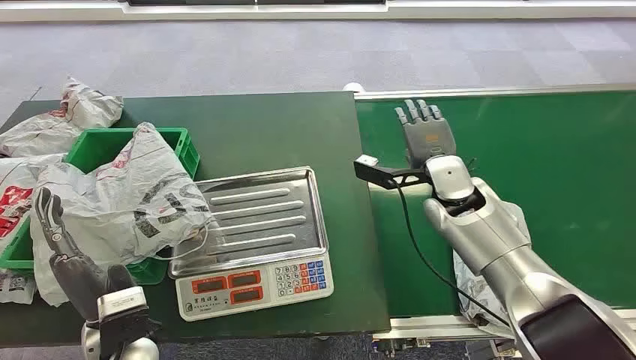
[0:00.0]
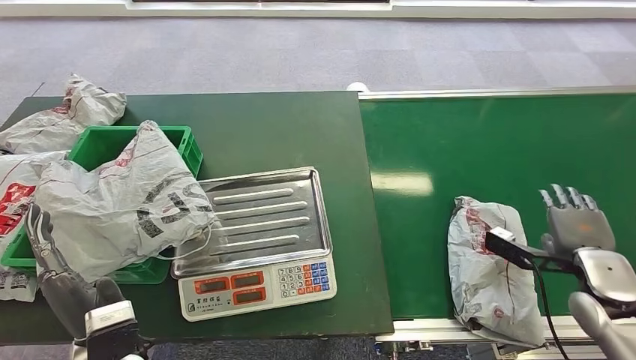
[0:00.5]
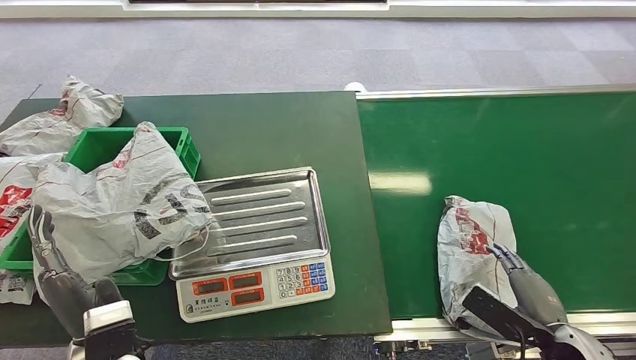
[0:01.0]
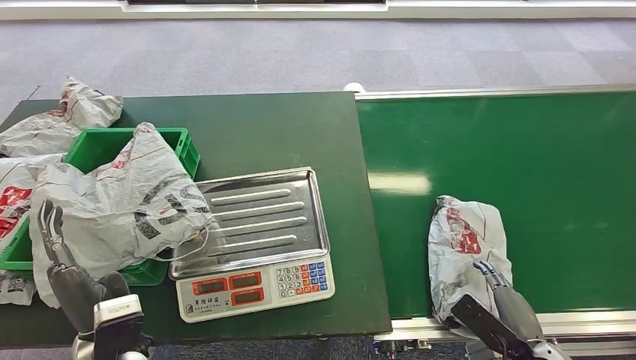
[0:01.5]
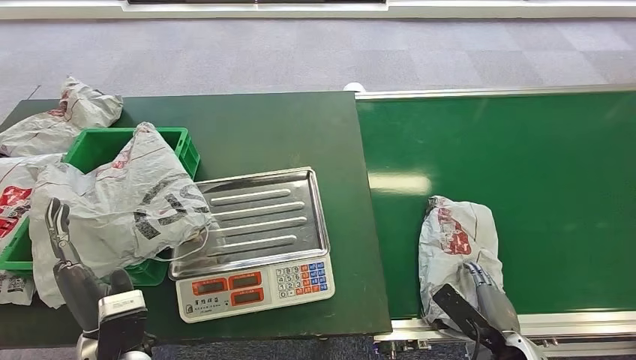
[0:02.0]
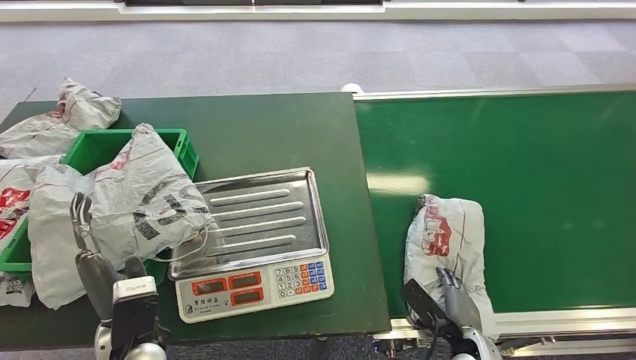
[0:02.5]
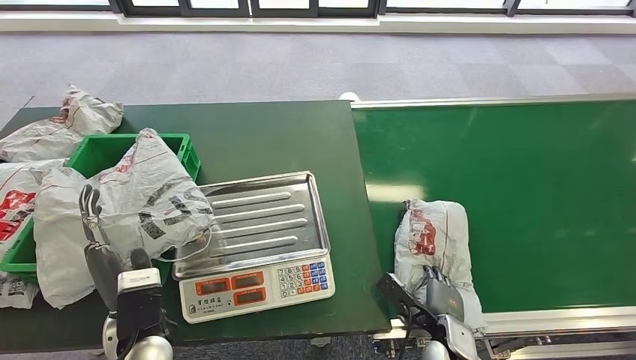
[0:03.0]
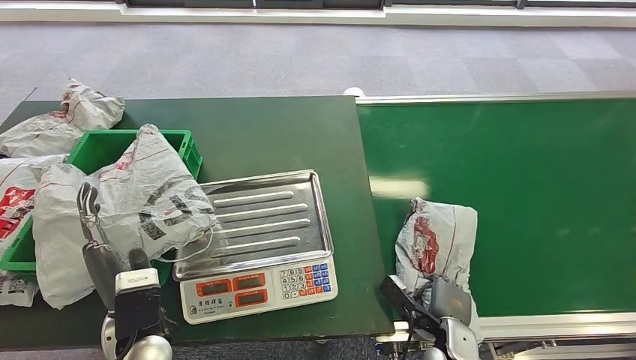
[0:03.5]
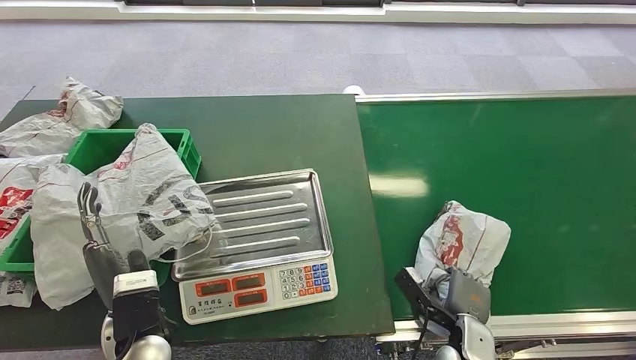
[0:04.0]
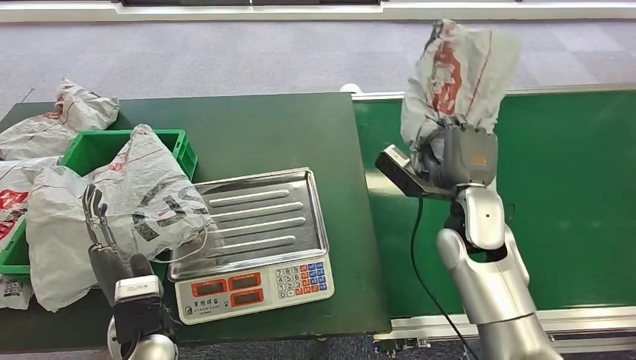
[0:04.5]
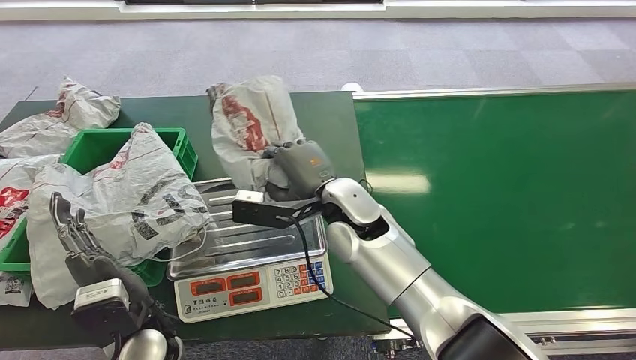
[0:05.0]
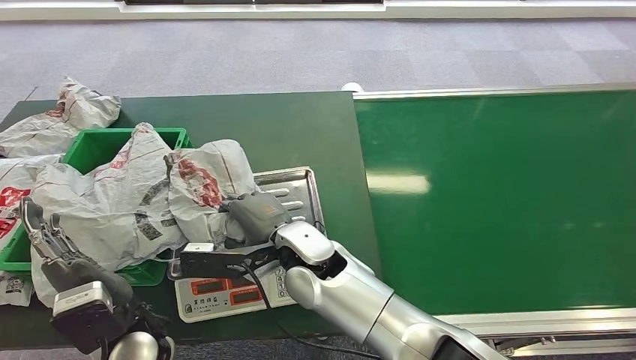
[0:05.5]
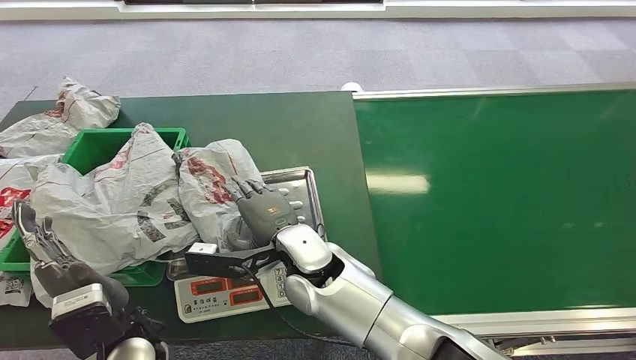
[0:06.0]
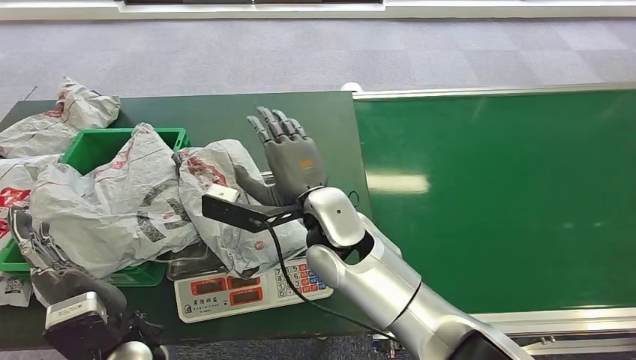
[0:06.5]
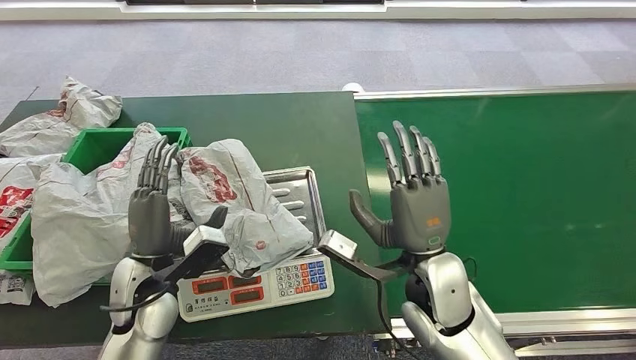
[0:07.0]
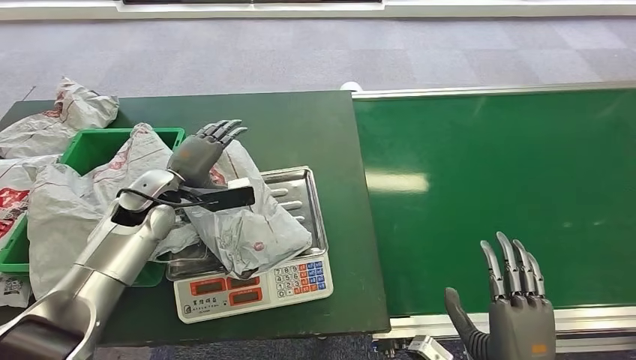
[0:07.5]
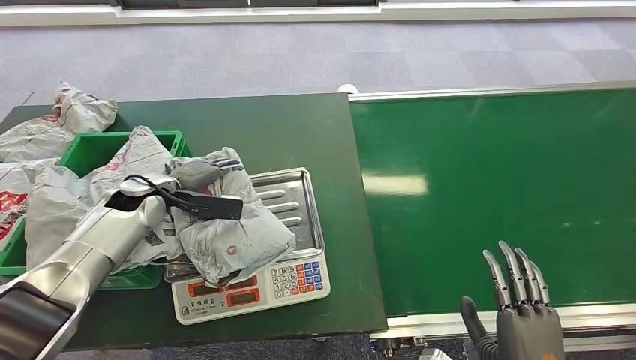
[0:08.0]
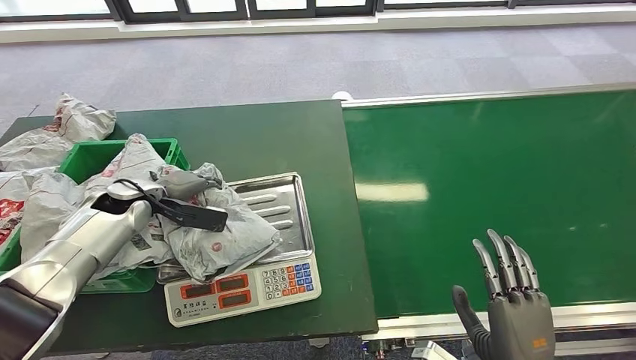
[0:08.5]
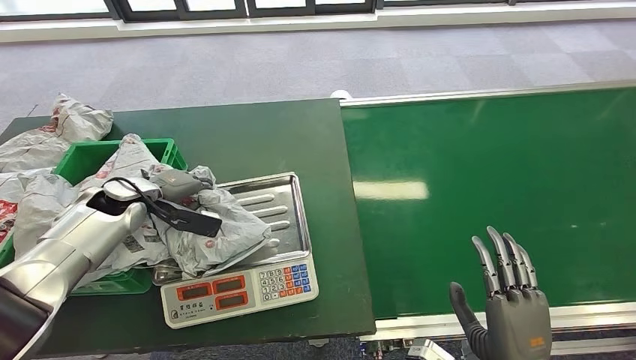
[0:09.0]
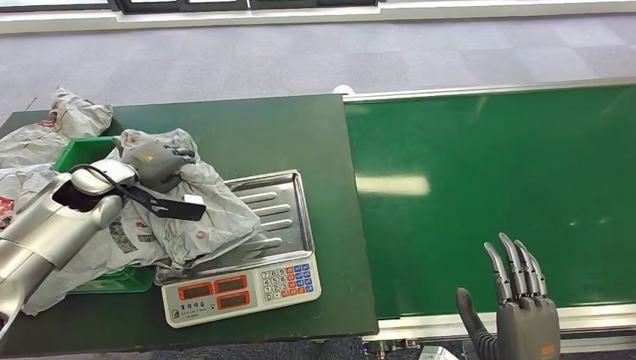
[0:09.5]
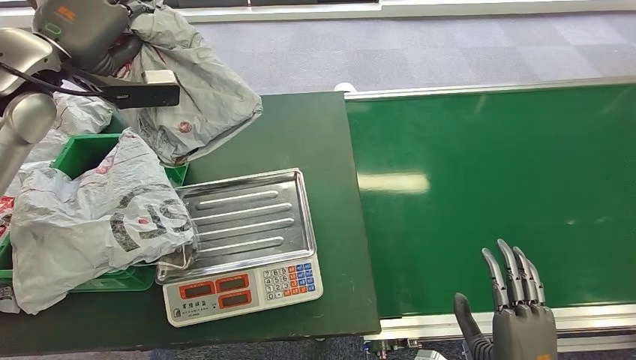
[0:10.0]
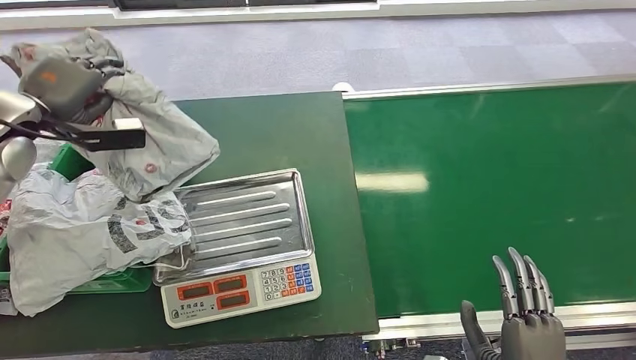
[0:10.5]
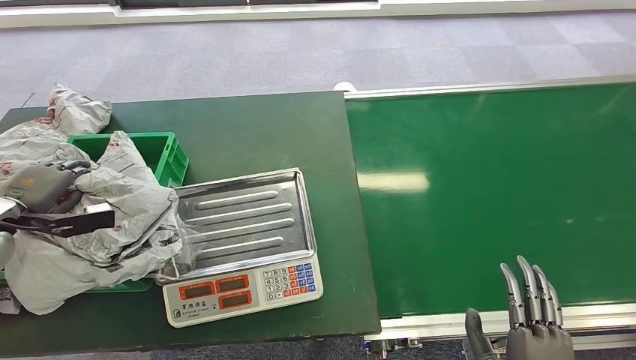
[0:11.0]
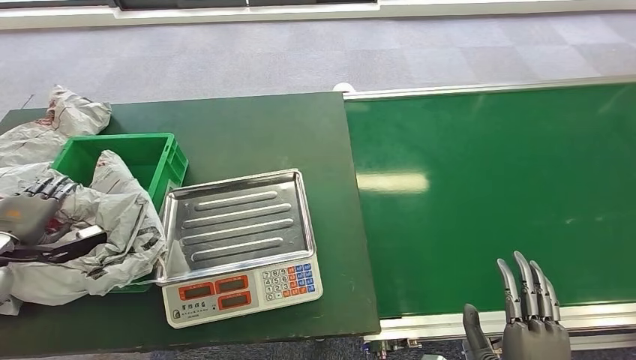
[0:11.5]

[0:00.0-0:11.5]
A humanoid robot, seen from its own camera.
Step, 0:00.0 to 0:04.5: Pick up the package from the conveyor belt.
Step, 0:05.0 to 0:06.5: Place the package onto the inbound machine.
Step, 0:07.0 to 0:09.5: Pick up the package from the inbound machine.
Step, 0:10.0 to 0:11.5: Place the package into the parcel locker.
